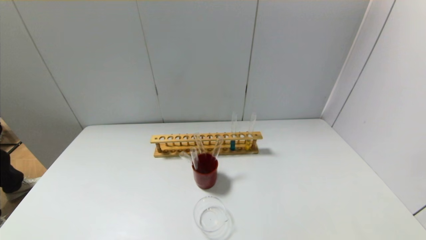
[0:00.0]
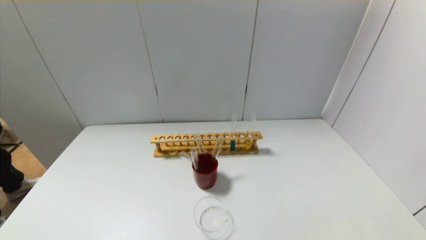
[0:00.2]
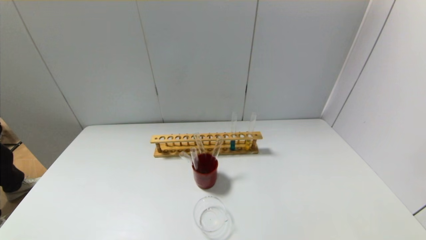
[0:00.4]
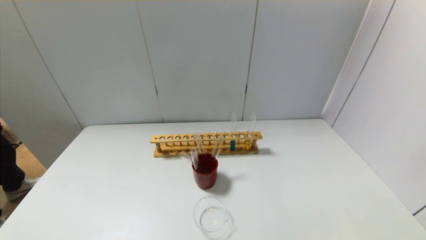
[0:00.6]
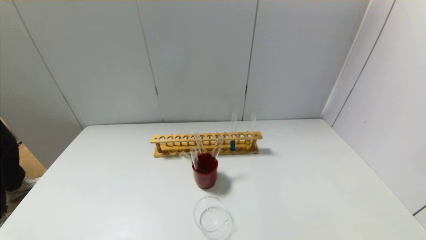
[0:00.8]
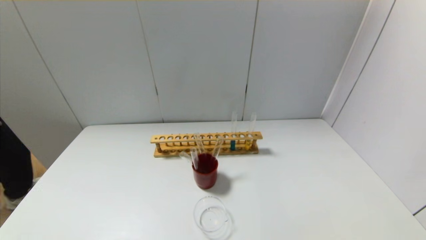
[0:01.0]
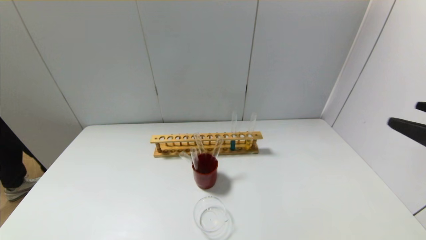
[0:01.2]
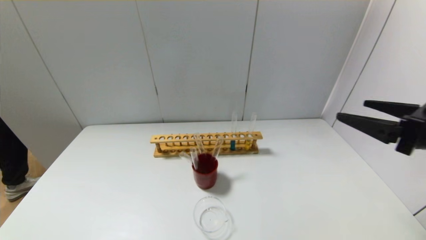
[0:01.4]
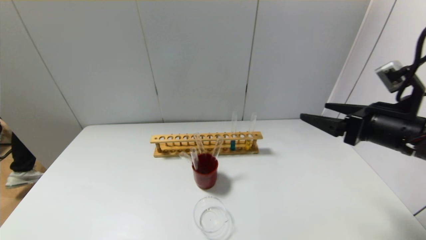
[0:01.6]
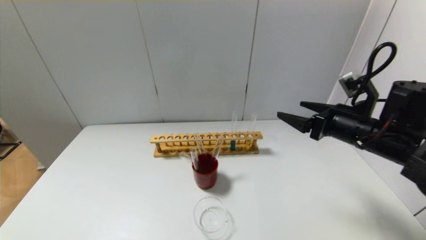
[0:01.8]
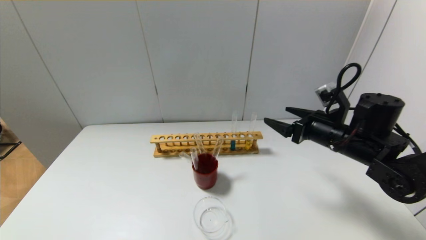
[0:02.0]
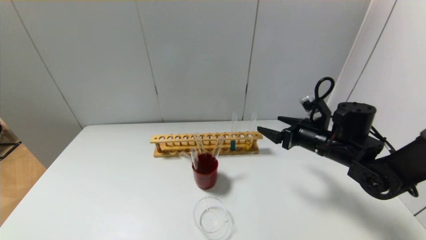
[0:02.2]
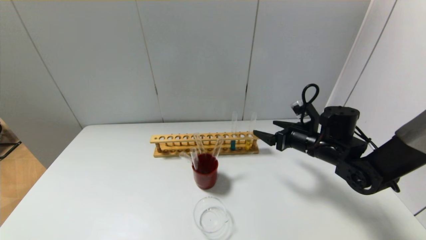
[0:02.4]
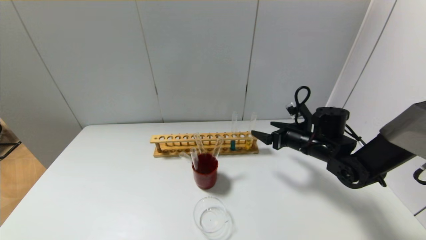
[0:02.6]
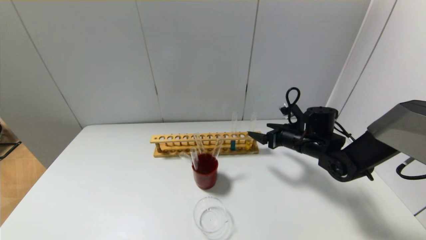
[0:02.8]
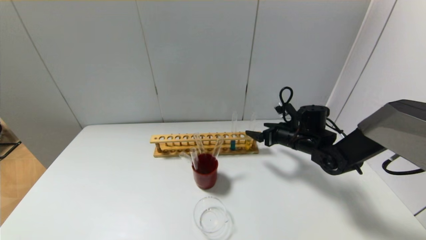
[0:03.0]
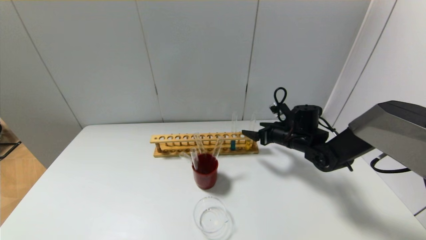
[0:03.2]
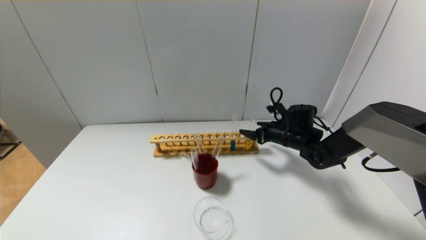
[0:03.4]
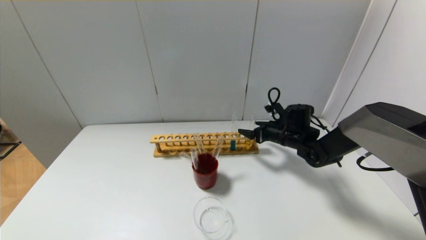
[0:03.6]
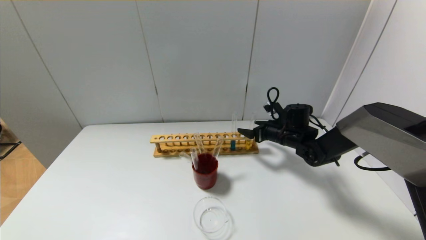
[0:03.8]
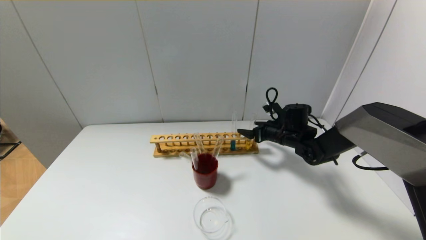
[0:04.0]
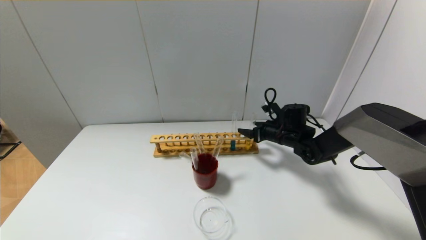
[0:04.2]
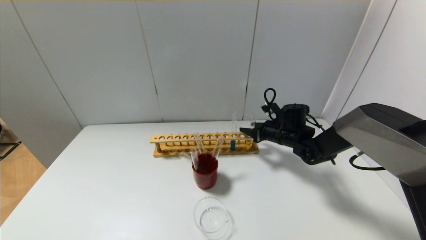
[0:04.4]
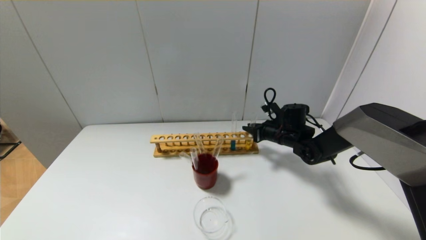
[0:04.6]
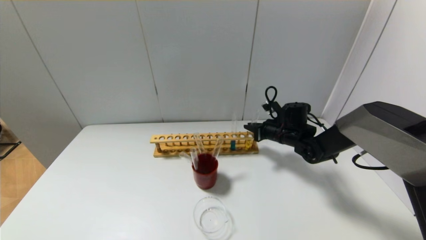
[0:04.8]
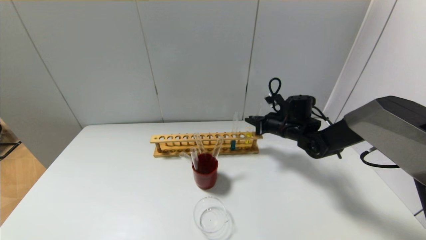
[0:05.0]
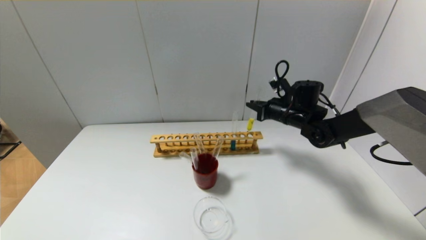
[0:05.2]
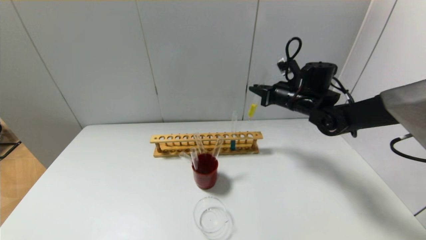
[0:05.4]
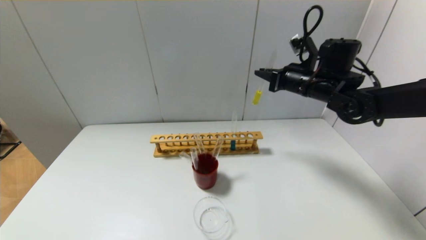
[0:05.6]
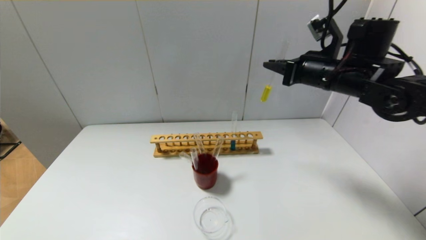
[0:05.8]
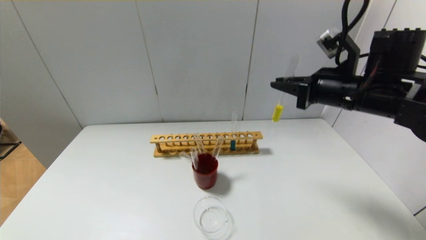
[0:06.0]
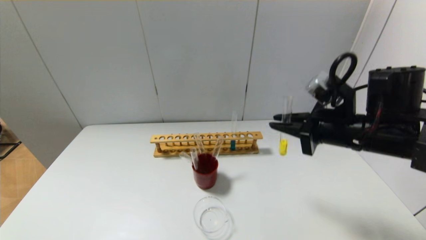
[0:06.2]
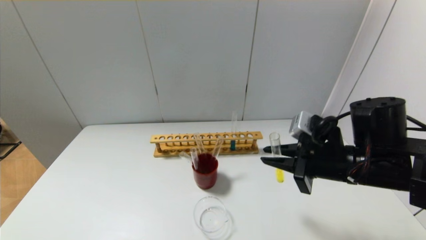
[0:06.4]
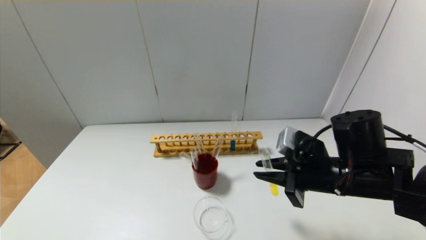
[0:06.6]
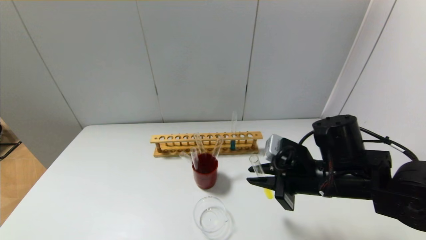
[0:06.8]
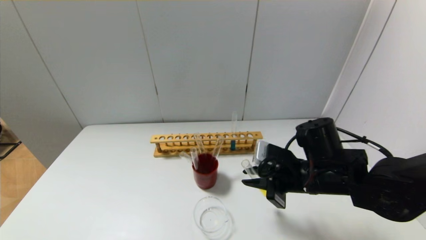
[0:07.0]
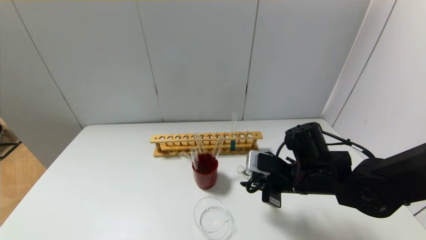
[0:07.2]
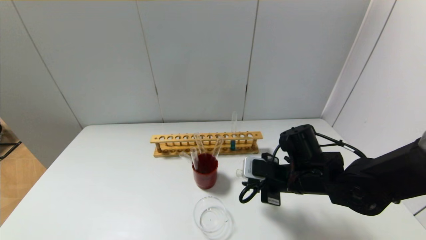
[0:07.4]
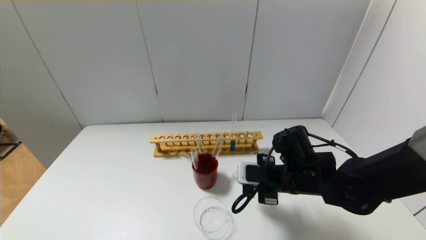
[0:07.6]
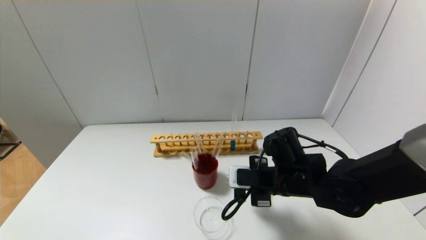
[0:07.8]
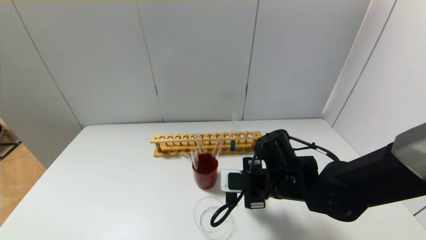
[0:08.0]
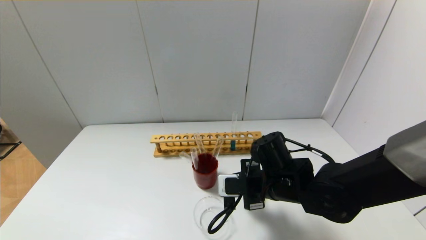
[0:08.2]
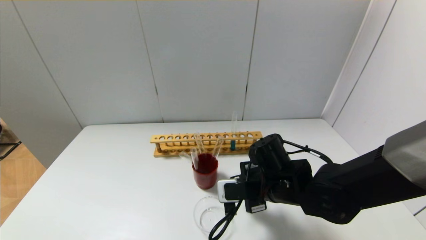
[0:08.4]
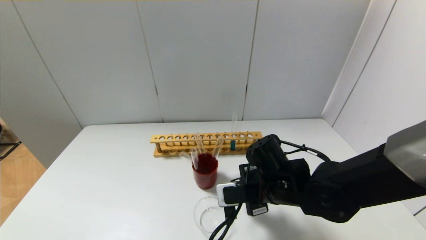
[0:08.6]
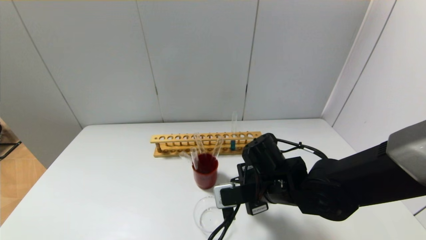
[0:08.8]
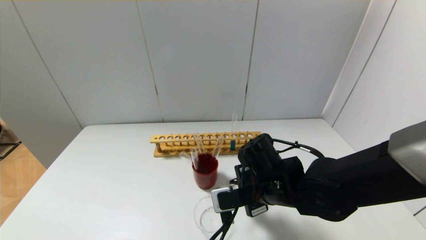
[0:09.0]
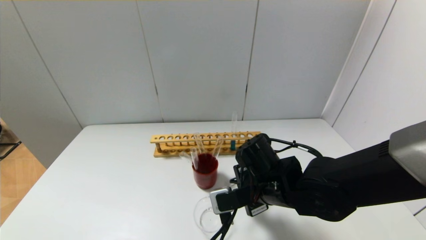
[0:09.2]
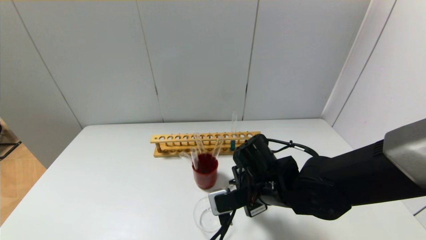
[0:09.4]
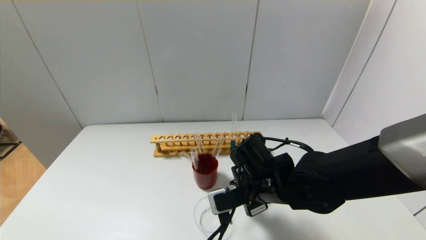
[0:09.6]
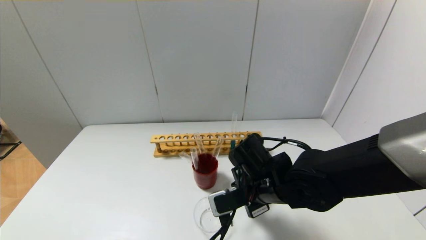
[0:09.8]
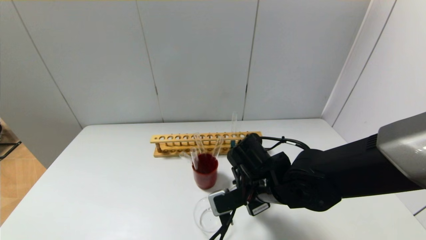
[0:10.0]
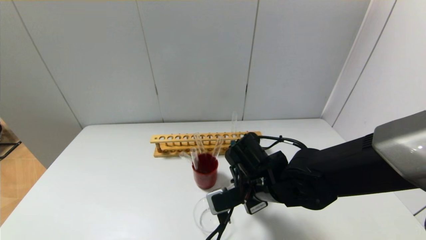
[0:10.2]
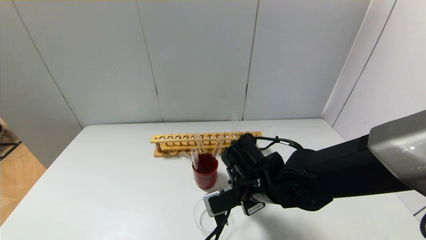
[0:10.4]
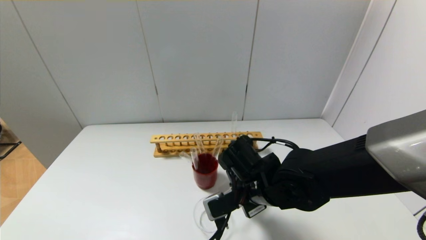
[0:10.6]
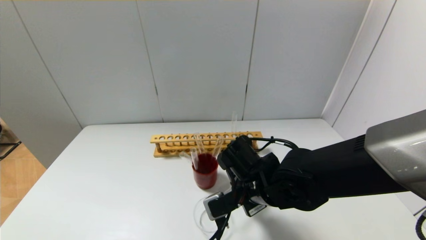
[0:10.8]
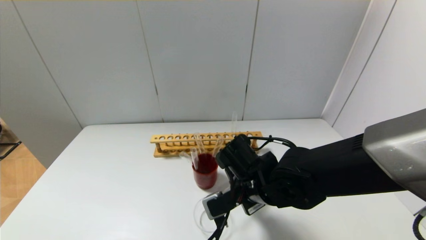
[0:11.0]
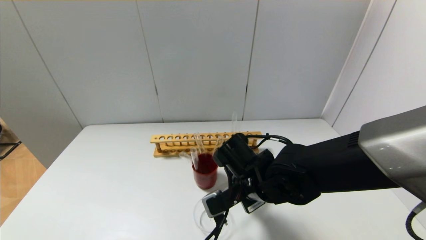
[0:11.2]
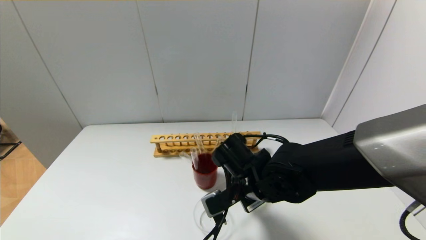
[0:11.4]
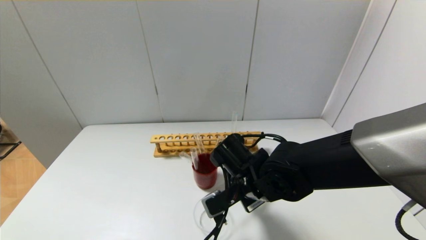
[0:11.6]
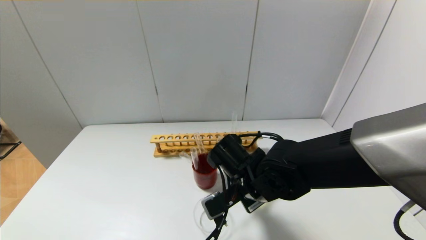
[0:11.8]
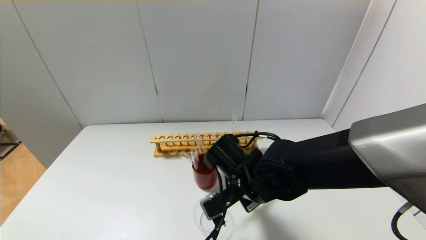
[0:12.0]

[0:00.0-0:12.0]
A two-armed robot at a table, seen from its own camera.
Step, 0:00.0 to 0:04.6: Grasp the yellow reagent with the right gripper.
0:00.0 to 0:01.6: The right gripper travels forward and upward by roughly 30 cm.
0:01.6 to 0:03.0: The right gripper shifts some 20 cm forward and downward.
0:03.0 to 0:04.4: The right gripper closes.
0:04.4 to 0:06.0: The right gripper goes roughly 25 cm upward and backward, and closes its fingers.
0:06.0 to 0:07.6: The right gripper shifts some 20 cm downward and to the left.
0:07.6 to 0:09.0: The right gripper moves to the left, approximately 5 cm.
0:09.0 to 0:10.4: There are only small adjustments of the grippers.
0:10.4 to 0:12.0: The grippers make only small movements.

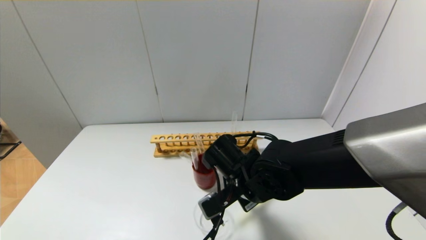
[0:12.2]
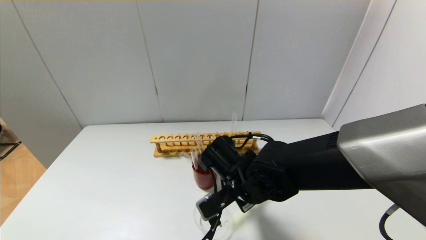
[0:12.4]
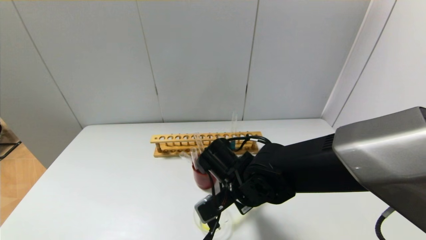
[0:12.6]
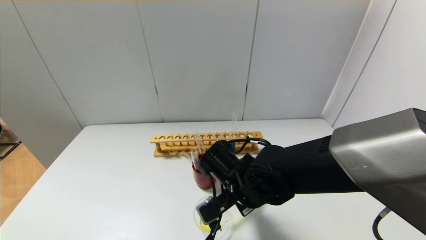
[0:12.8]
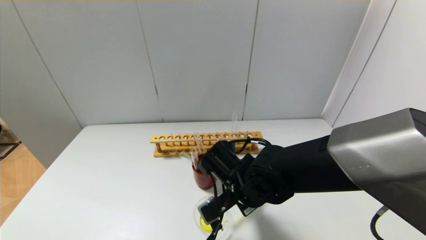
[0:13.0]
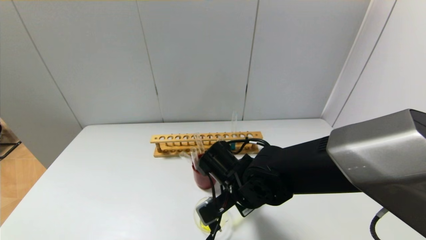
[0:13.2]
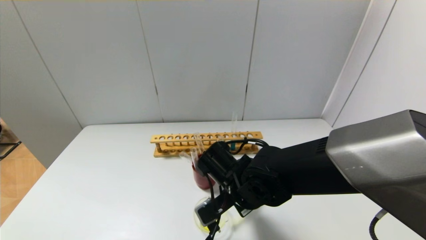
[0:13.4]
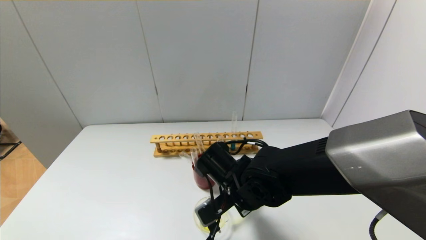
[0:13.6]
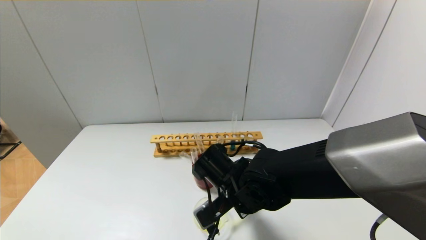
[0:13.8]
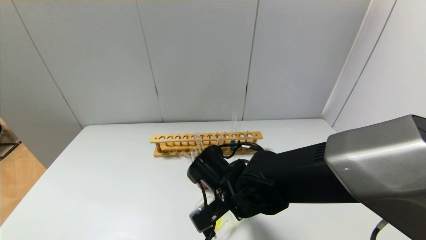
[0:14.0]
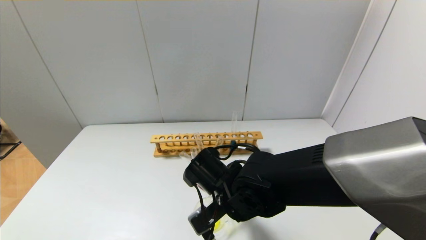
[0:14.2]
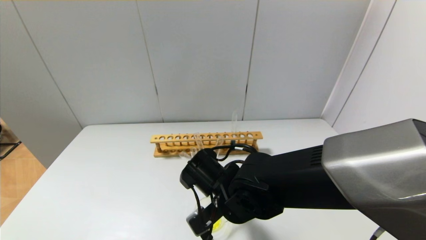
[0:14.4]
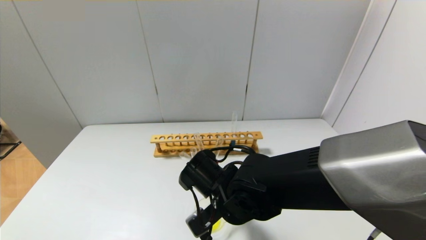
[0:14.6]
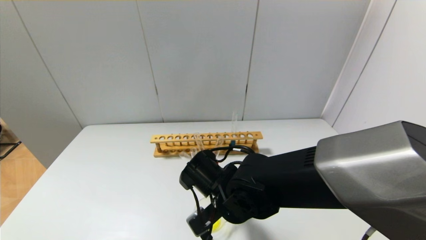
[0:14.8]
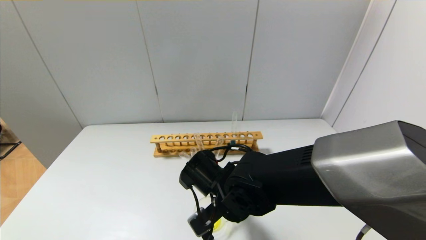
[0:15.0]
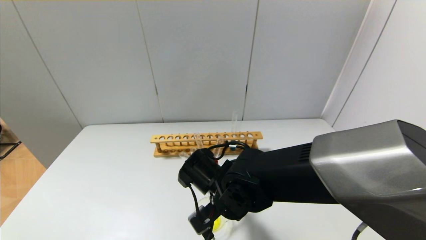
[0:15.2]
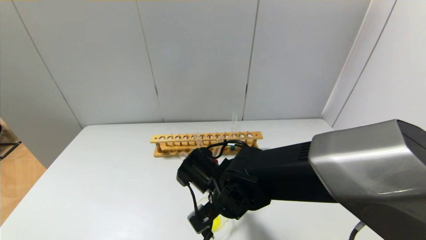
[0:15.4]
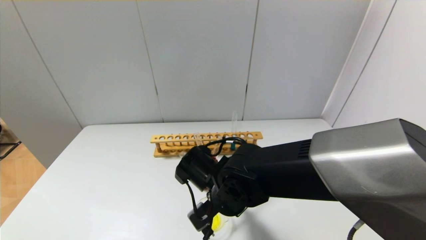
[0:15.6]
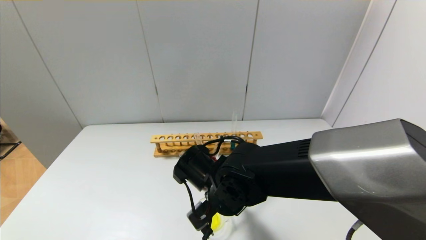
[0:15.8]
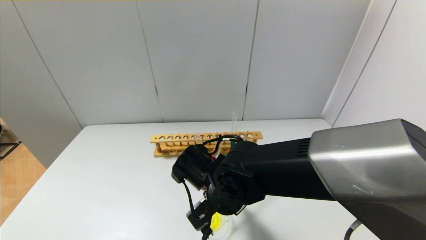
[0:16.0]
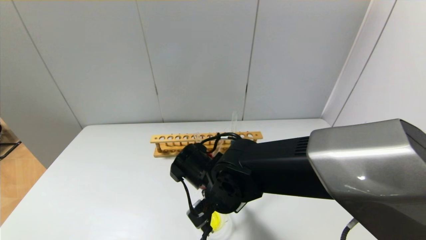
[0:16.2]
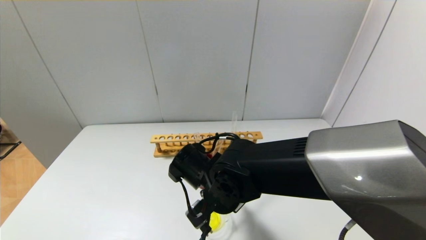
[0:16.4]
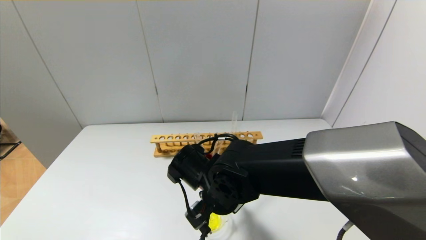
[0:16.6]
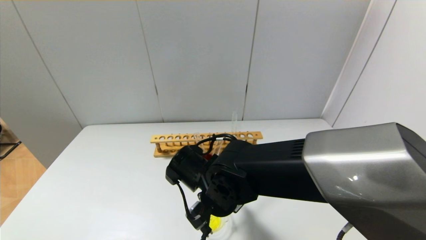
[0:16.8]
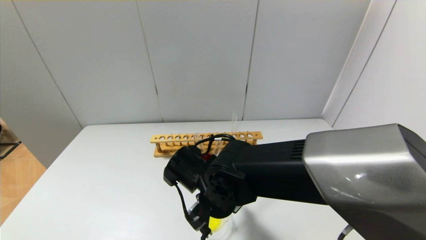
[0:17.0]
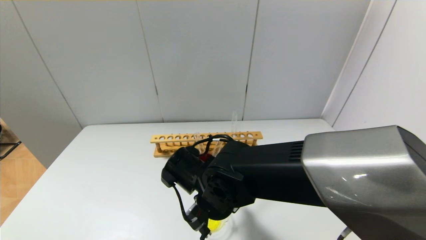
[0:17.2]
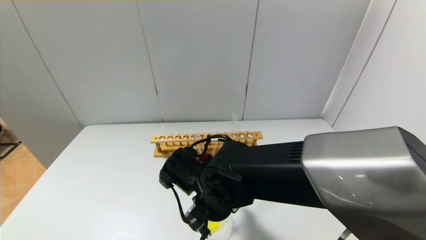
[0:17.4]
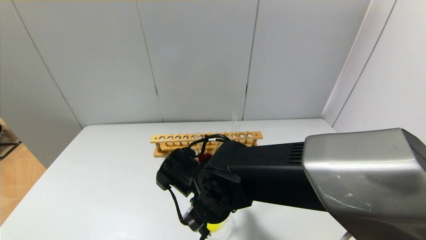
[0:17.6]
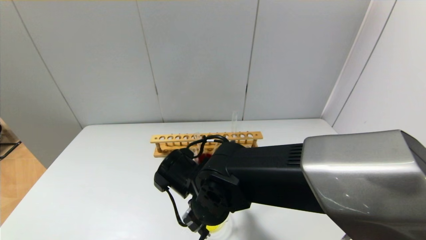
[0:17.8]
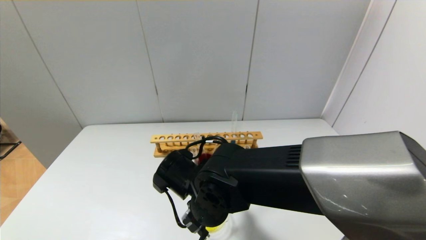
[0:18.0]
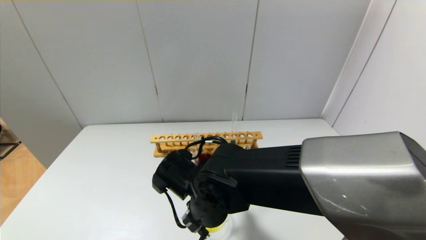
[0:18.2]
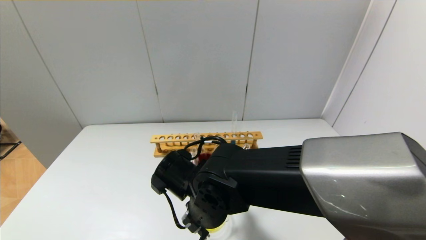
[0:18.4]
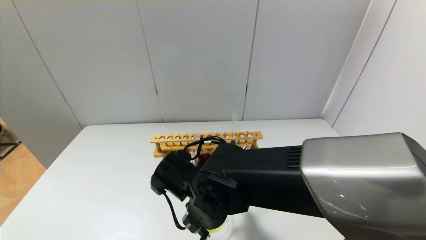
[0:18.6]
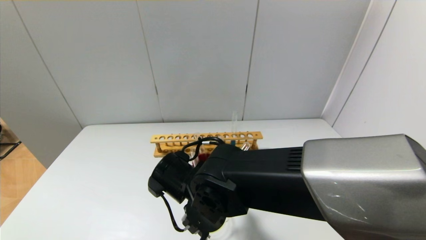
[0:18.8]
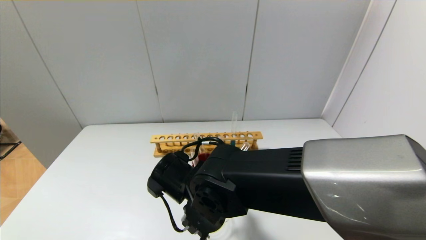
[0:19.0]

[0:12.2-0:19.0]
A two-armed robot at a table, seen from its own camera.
0:12.2 to 0:16.2: There are only small adjustments of the grippers.
0:16.2 to 0:17.6: The grippers stay close to where they were, moving slightly.
0:17.6 to 0:19.0: Neither gripper changes place.
